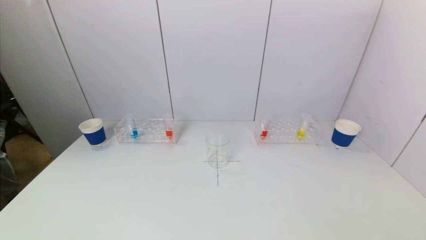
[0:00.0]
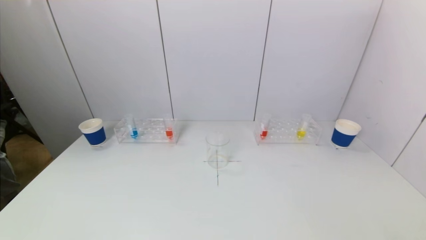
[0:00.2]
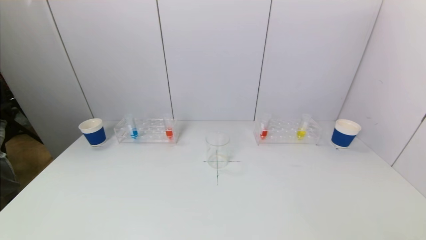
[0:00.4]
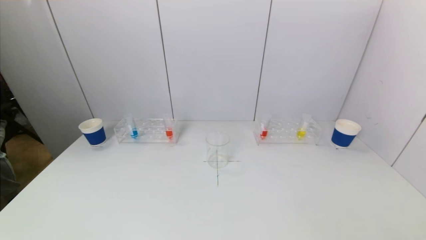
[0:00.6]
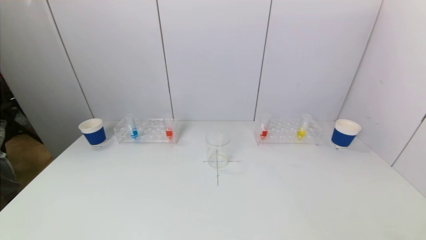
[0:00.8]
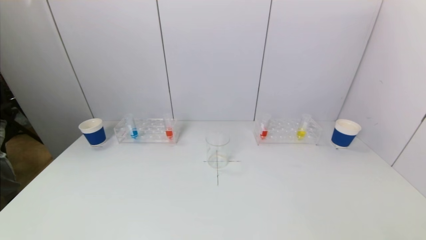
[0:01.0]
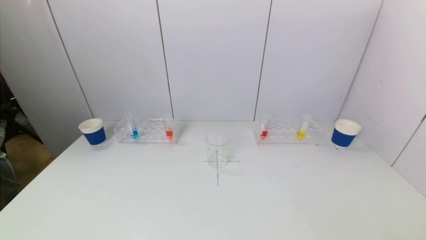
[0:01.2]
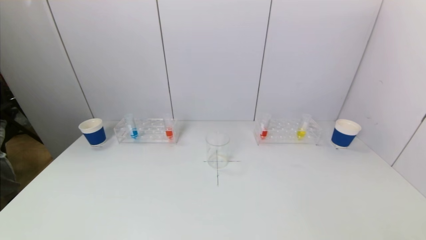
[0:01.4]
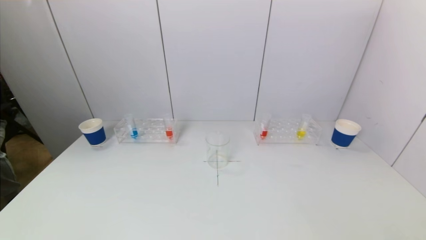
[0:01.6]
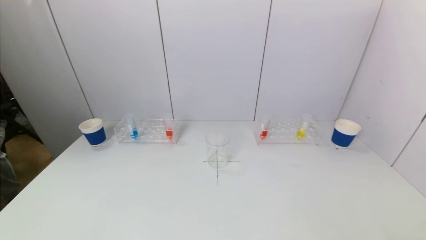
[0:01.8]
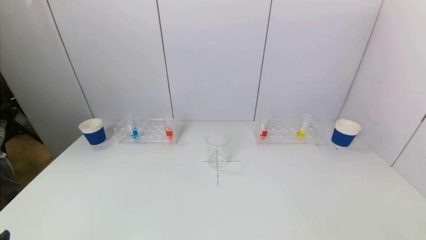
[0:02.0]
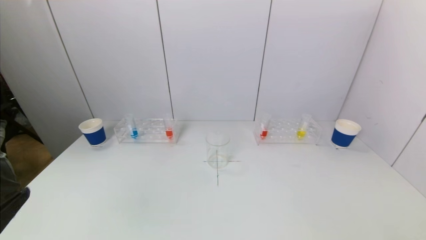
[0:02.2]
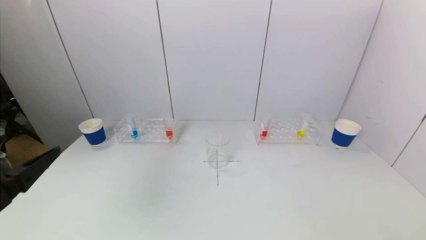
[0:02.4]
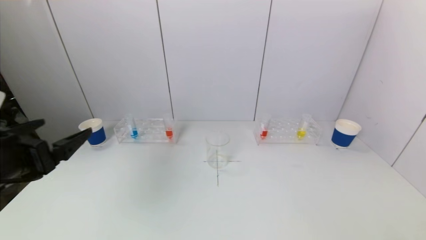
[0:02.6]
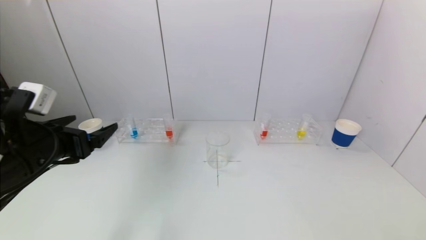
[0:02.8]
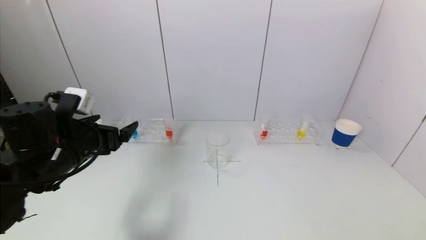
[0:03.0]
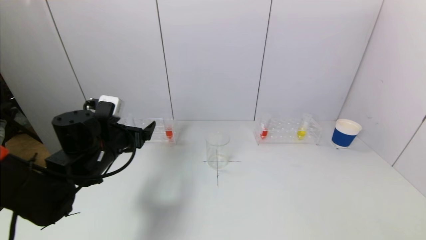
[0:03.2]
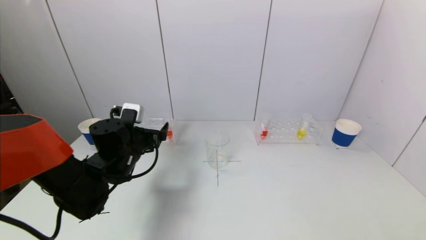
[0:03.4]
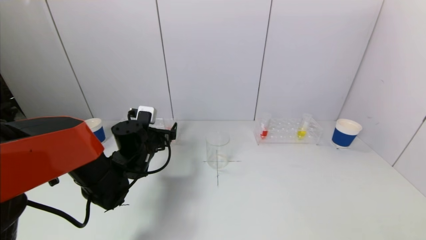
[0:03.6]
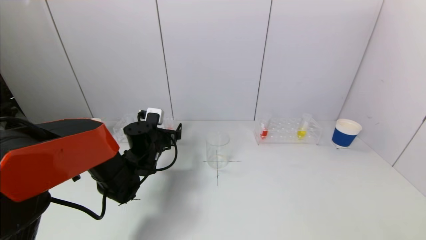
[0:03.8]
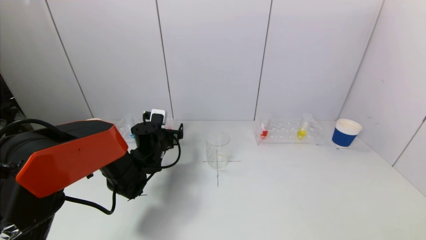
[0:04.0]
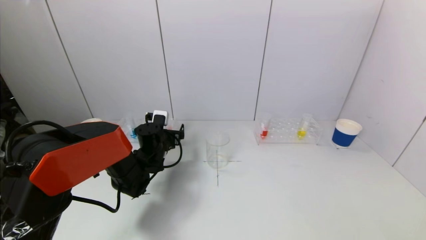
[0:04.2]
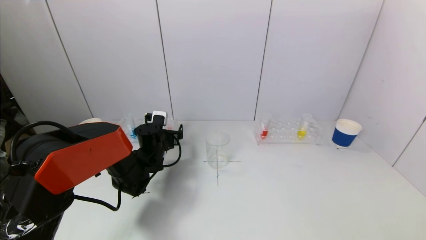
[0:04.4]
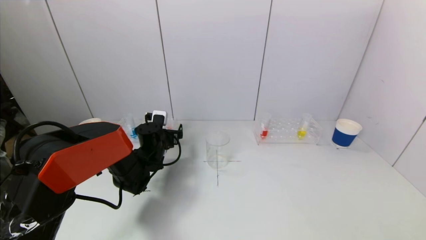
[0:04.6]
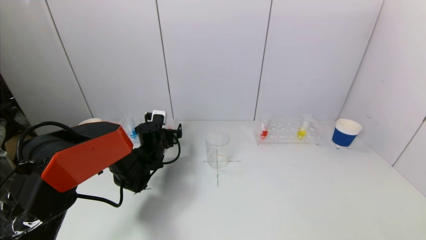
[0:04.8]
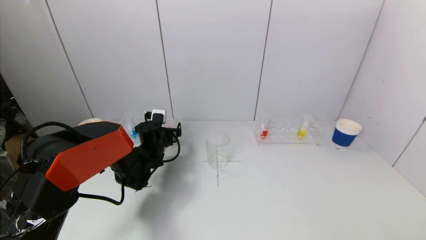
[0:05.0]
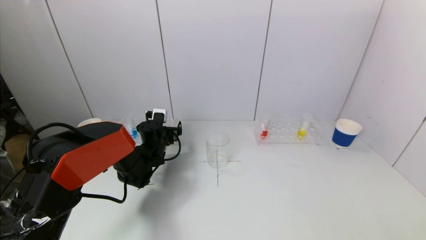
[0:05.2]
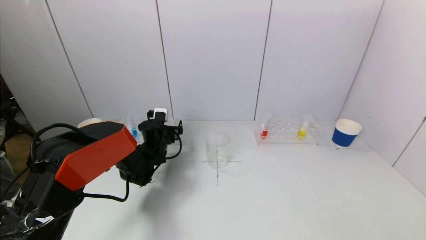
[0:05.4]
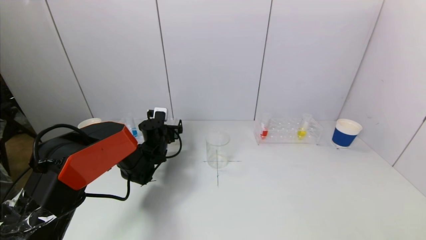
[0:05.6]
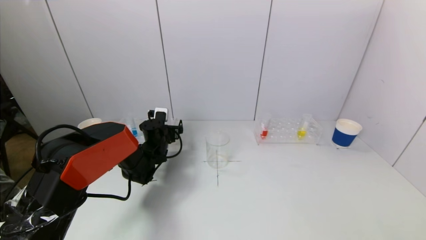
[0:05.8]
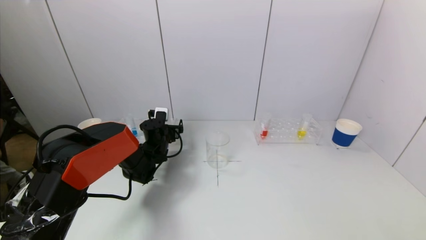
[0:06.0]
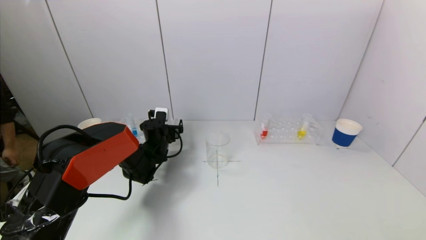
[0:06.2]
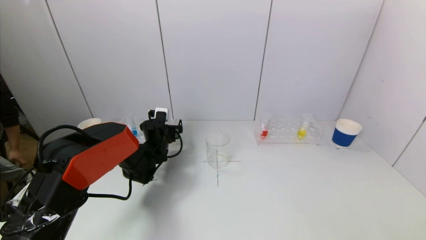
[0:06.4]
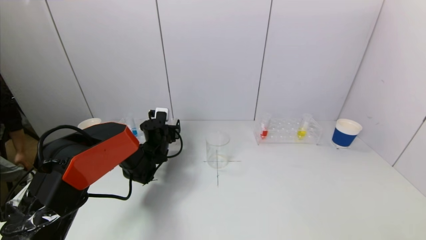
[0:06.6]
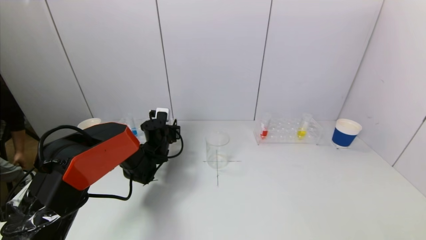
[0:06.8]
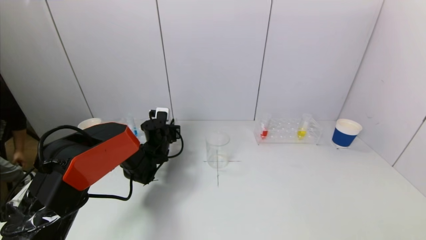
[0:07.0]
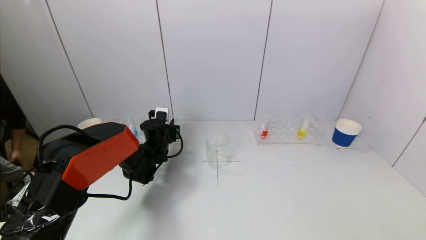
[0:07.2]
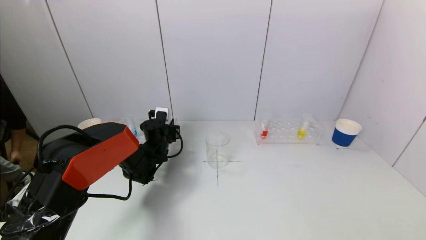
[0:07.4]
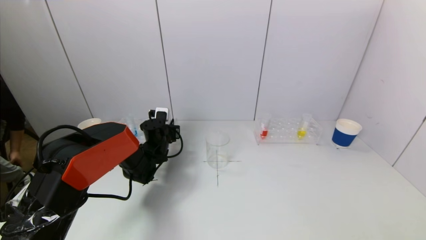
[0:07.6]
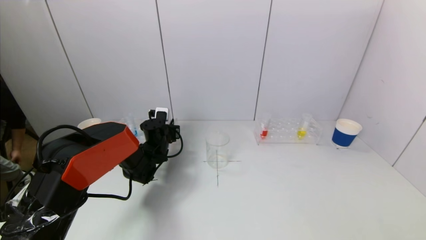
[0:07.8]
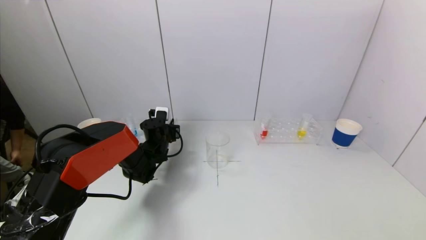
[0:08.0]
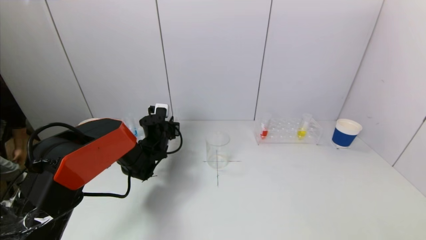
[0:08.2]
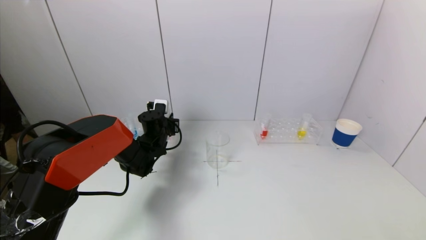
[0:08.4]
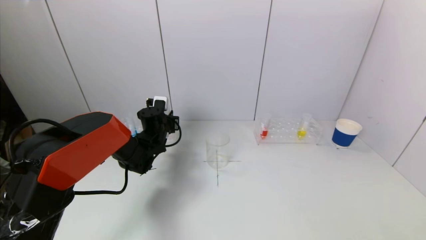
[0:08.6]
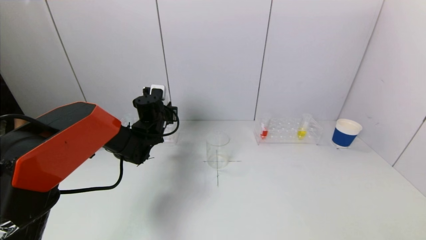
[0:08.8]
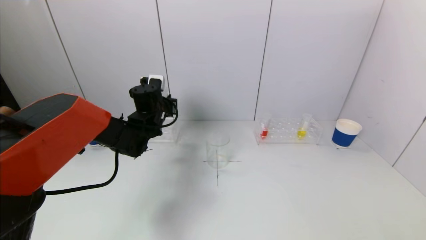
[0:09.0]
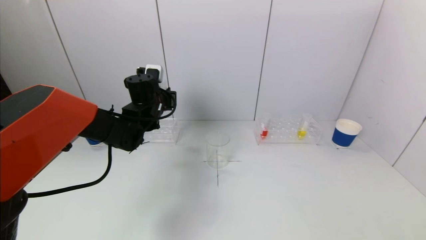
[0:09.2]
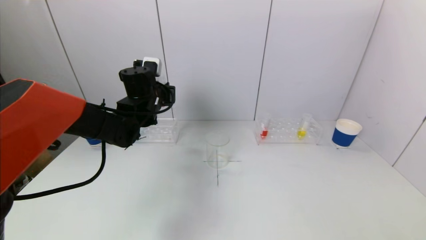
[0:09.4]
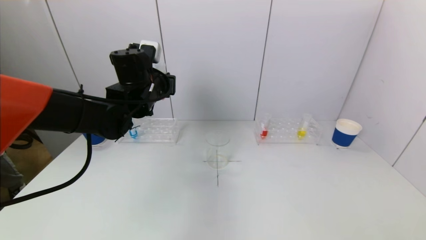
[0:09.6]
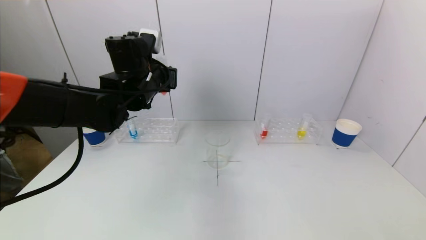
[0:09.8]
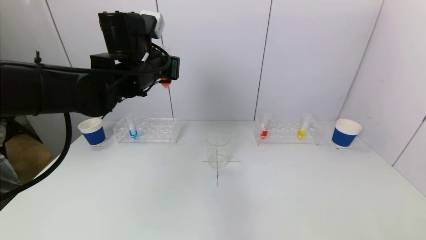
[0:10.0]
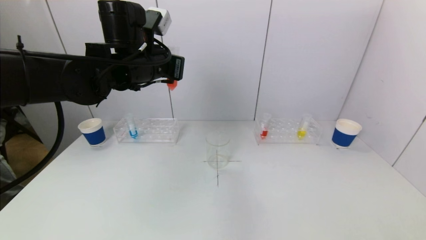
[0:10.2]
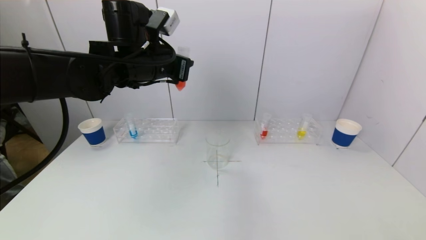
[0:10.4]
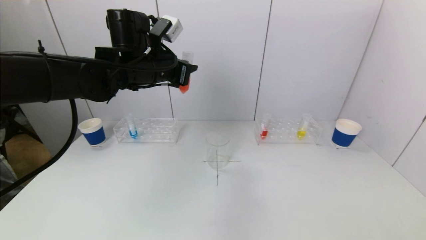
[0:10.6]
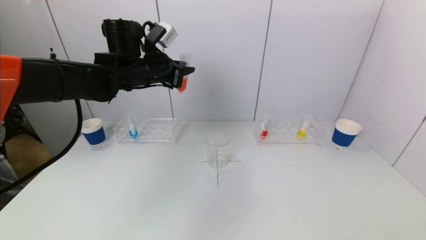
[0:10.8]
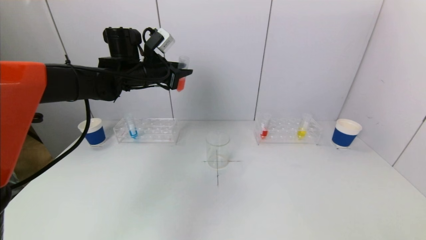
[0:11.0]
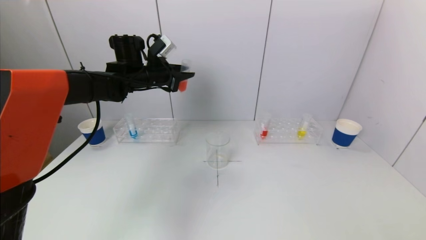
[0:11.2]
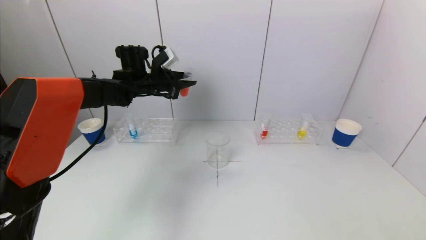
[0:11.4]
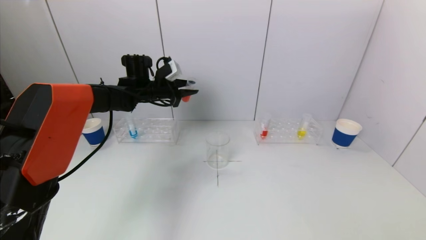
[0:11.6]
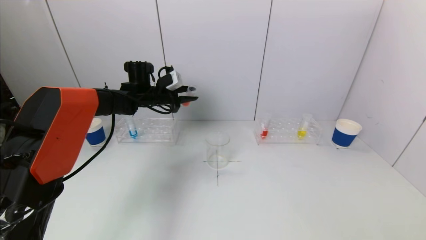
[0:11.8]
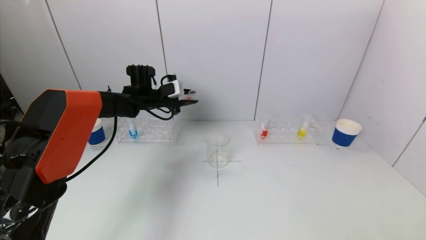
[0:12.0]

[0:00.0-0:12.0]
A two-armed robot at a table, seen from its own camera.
Task of the whole recording: pick up a test tube with pigment on left test tube rack and a test tube with pigment on right test tube rack by grippers and pour them into the beaker.
Step, 0:00.0 to 0:07.2: Grasp the red reagent with the left gripper.
0:01.6 to 0:03.0: The left gripper is displaced forward by some 25 cm.
0:03.0 to 0:04.4: The left gripper moves forward, downward and to the right, roughly 20 cm.
0:04.4 to 0:06.0: The grippers make only small movements.
0:07.6 to 0:09.0: The left gripper travels upward by about 10 cm.
0:09.0 to 0:10.4: The left gripper travels upward and backward by roughly 15 cm.
0:10.4 to 0:12.0: The left gripper heads forward and downward, covering some 20 cm.

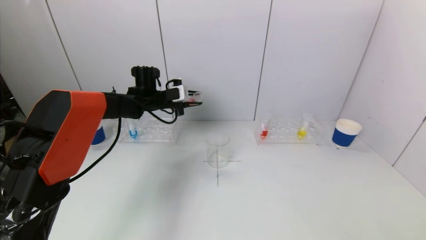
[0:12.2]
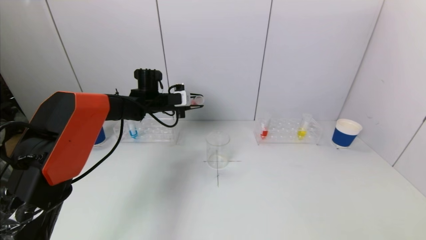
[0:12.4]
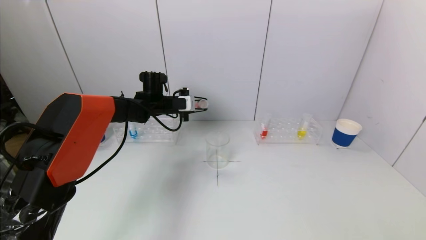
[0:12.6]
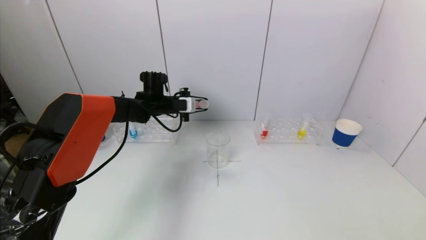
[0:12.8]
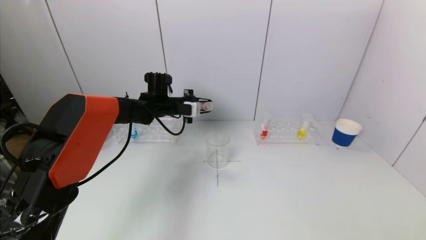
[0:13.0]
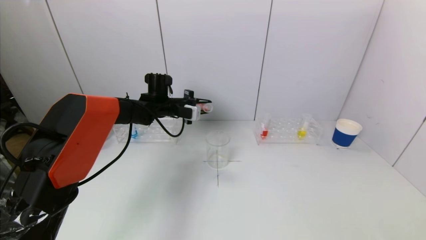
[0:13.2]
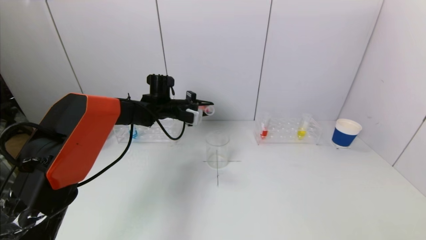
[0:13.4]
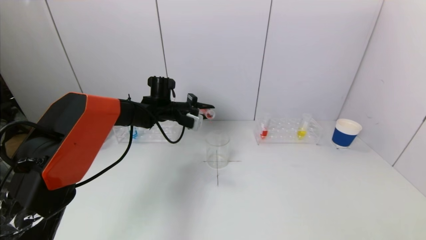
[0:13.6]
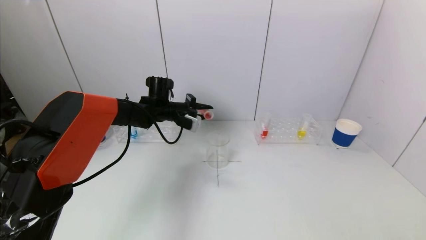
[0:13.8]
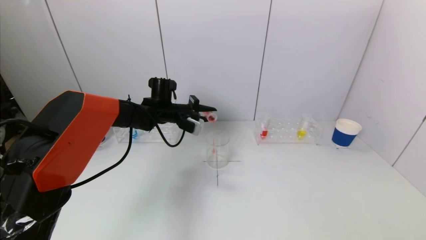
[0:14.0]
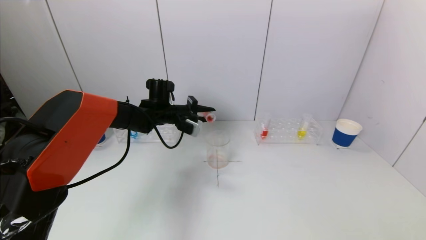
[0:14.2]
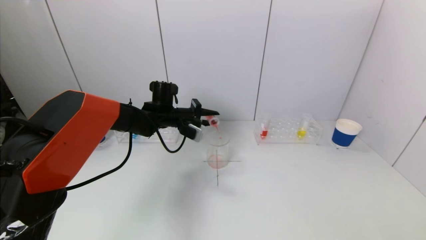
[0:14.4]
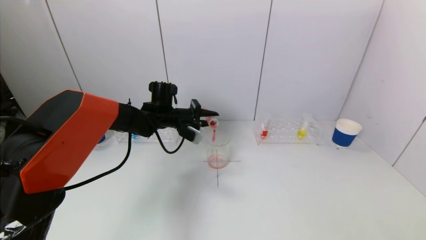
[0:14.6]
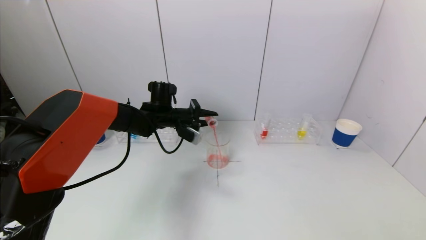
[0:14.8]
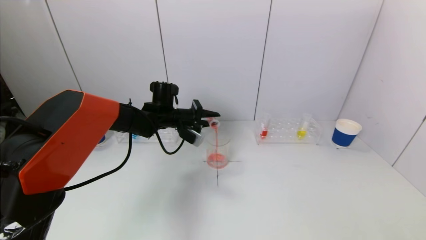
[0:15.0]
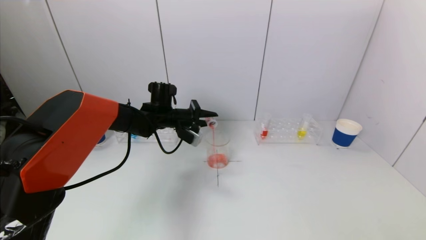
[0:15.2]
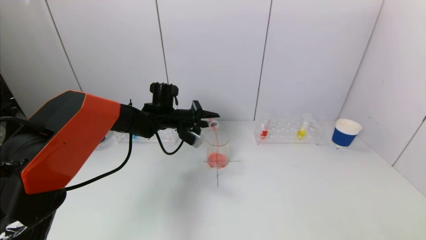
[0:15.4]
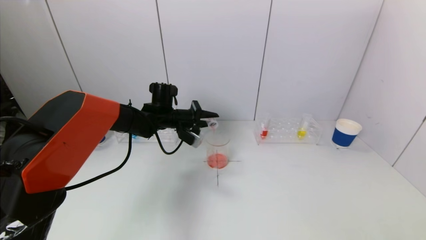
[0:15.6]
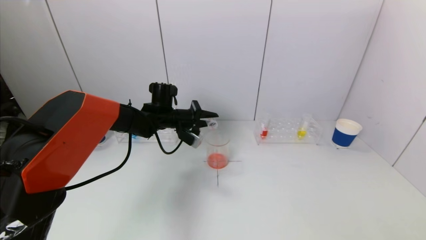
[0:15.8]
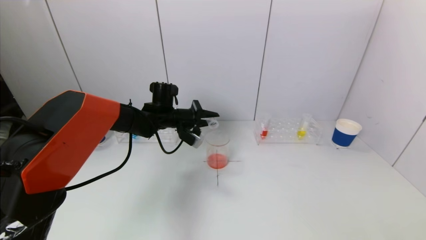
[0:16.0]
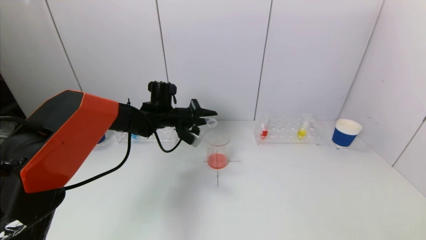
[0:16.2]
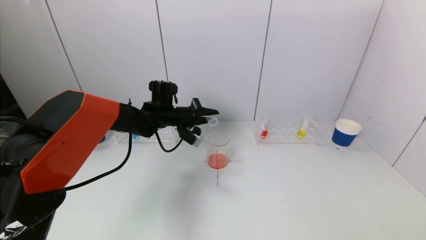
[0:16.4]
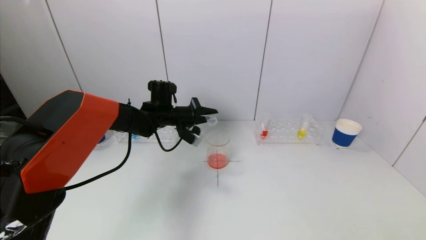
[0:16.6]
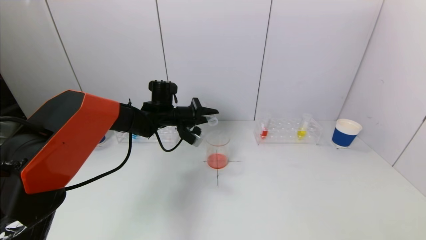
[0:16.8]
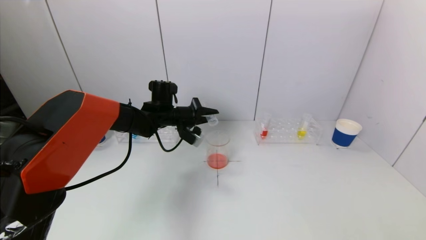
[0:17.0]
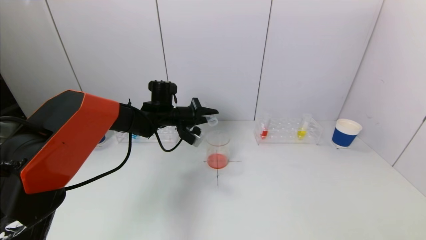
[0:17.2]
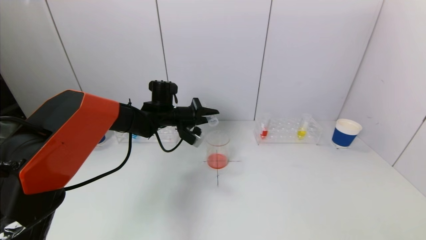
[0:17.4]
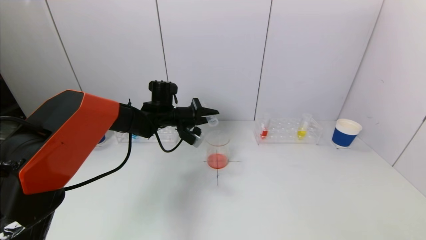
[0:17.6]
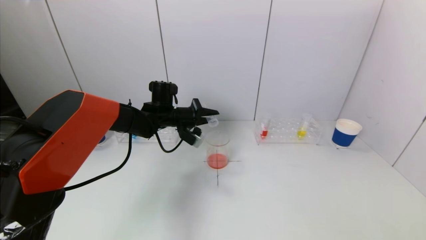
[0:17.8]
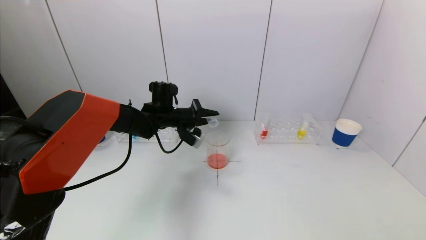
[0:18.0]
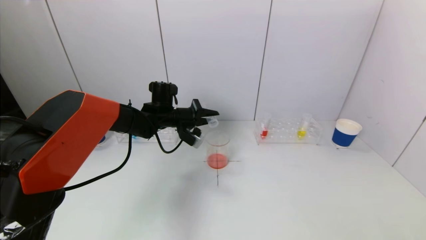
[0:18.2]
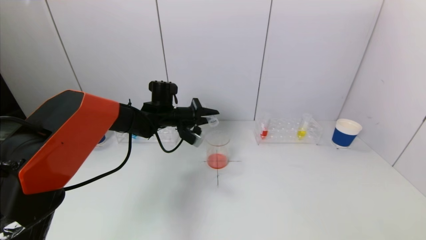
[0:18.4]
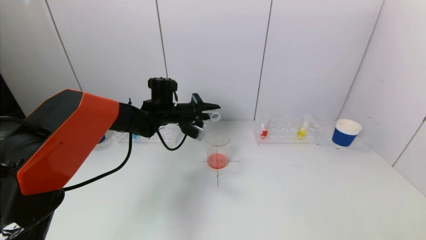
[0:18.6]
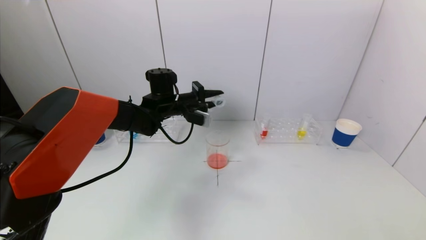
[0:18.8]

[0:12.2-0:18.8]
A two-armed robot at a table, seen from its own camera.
Task of the whole recording: pick up a test tube with pigment on left test tube rack and a test tube with pigment on right test tube rack by grippers and pour them into the beaker.
Step, 0:12.2 to 0:17.0: Pour the red reagent into the graduated cylinder with the left gripper.
0:13.8 to 0:15.4: The grippers make only small movements.
0:15.4 to 0:18.8: The grippers make only small movements.
